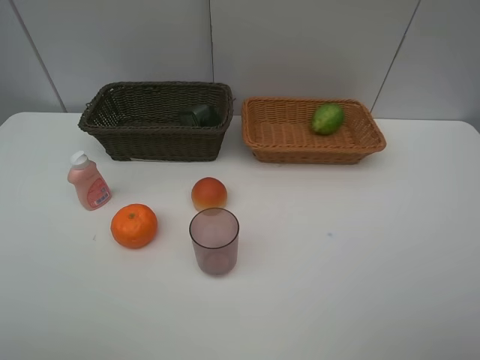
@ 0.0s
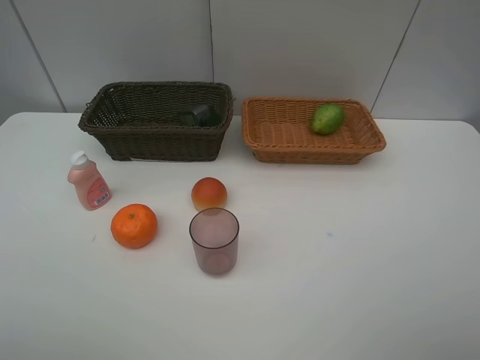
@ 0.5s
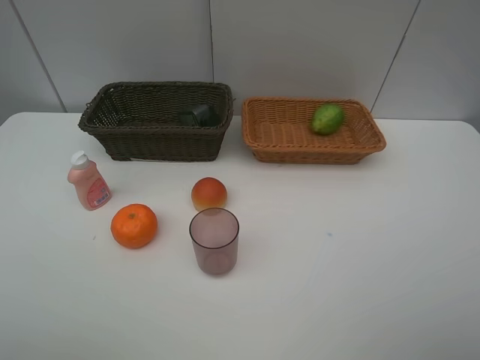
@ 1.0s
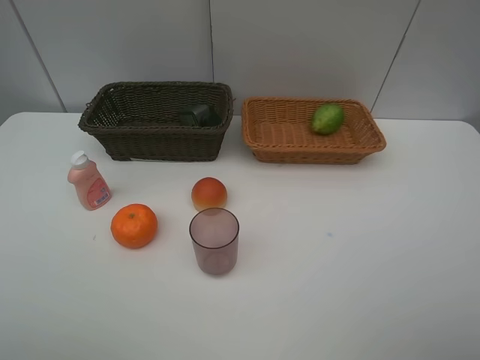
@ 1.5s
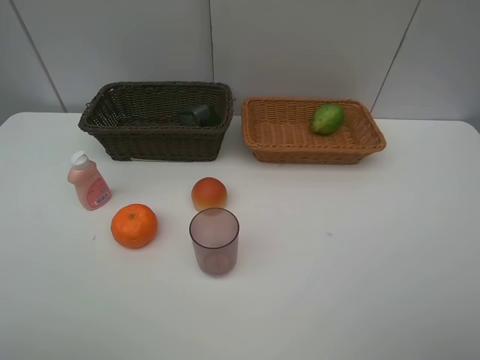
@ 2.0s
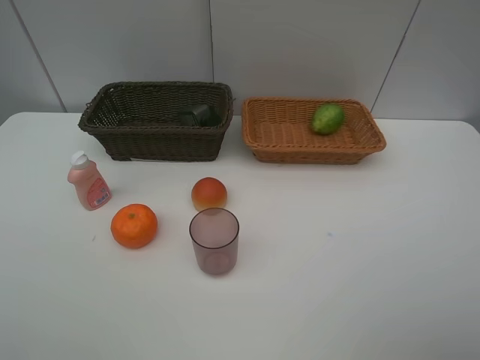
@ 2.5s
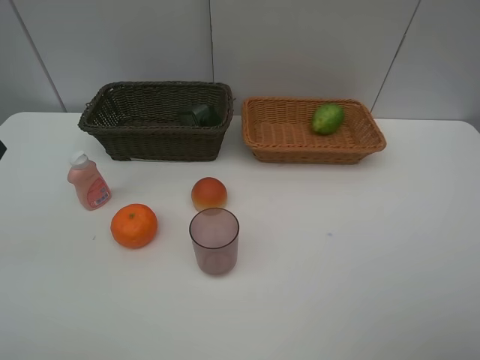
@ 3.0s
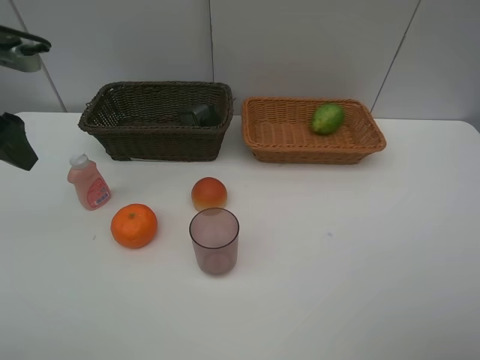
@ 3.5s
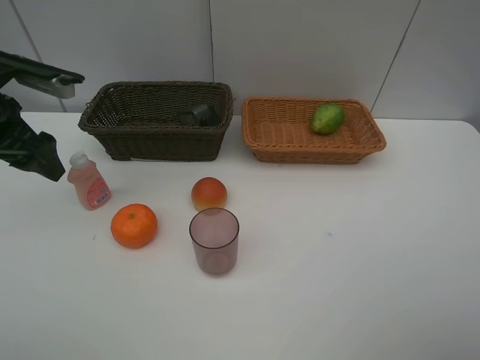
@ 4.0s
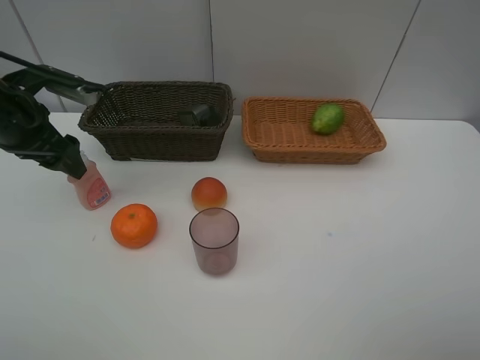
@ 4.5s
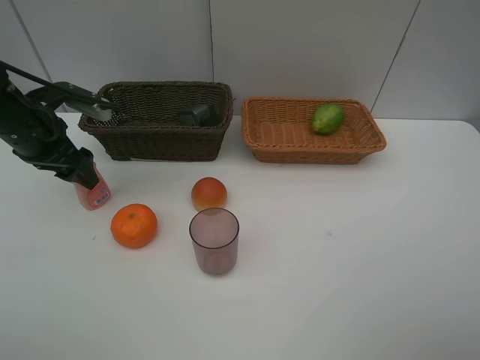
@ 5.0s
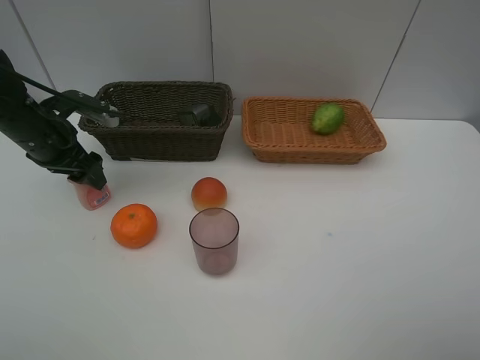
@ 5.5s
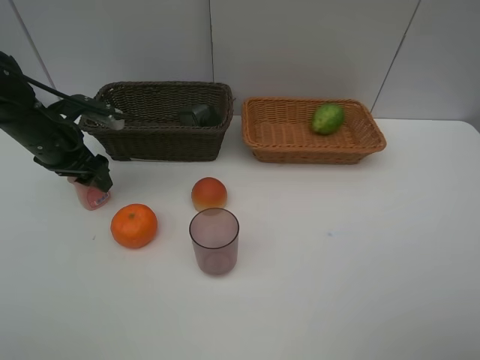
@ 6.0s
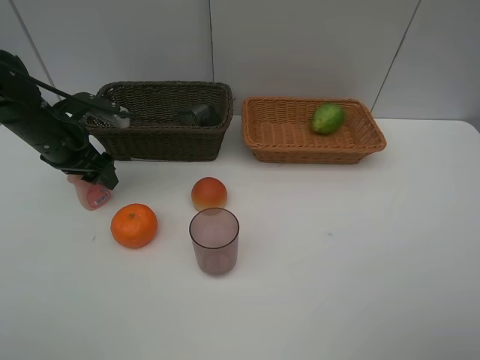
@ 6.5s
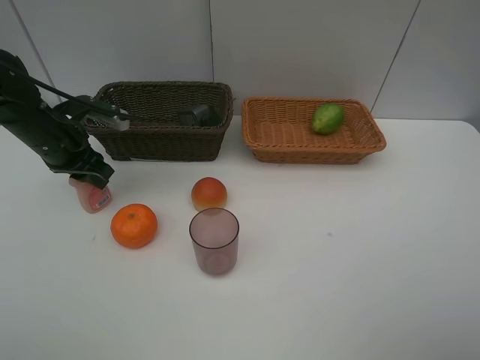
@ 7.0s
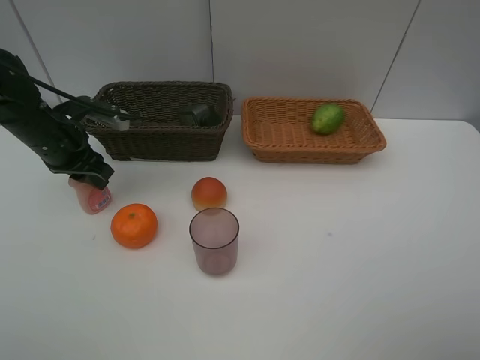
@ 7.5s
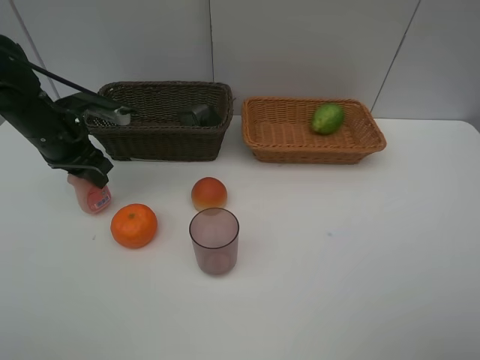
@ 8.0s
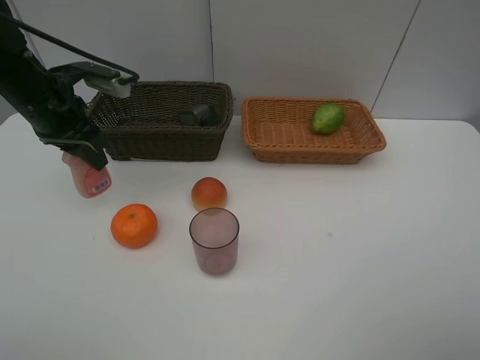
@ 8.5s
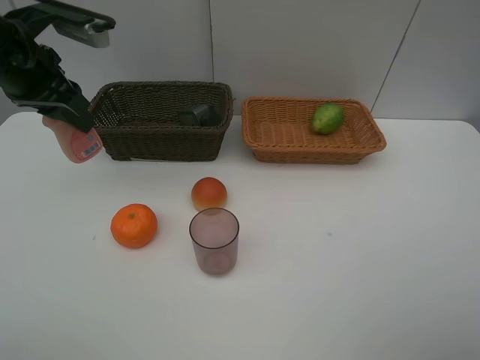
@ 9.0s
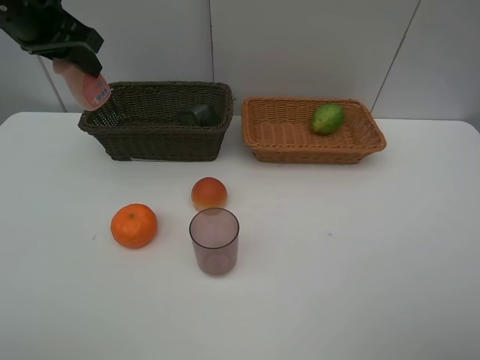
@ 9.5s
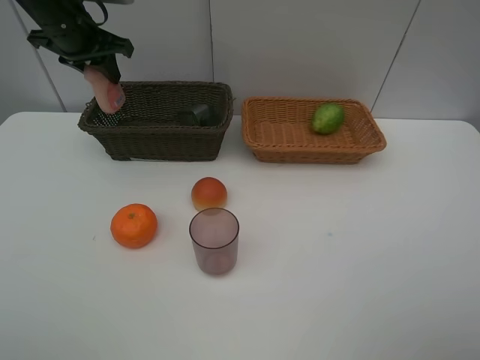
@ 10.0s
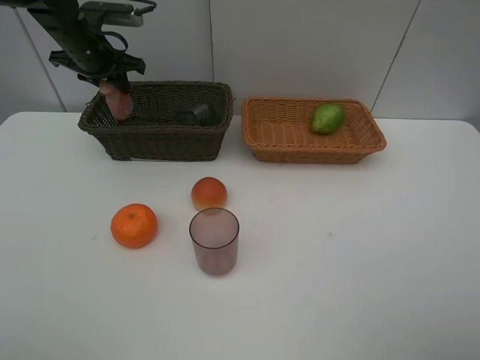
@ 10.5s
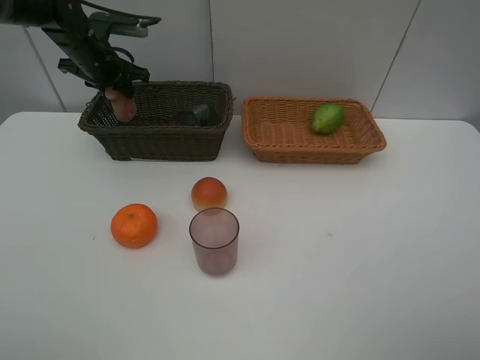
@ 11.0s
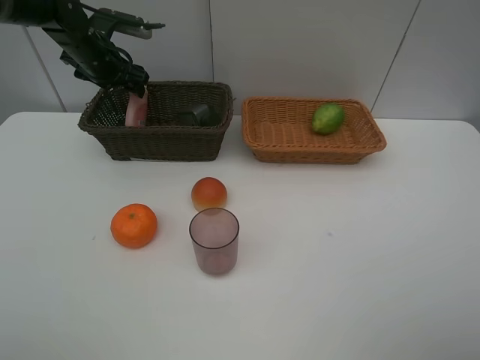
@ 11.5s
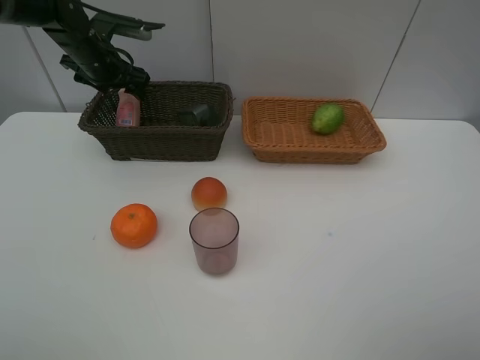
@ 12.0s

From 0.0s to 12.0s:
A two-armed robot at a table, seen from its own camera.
Task of the whole recording: place multiple objects separately in different baskets.
From 0.0s to 2.0s: Both grippers stay about where they are.
From 2.0s to 4.0s: The left gripper is displaced forward by approximately 30 cm.
From 4.0s to 6.0s: The left gripper shifts about 10 cm downward and forward.
From 6.0s to 8.0s: The left gripper closes.
From 8.0s to 10.0s: The left gripper moves forward and upward, approximately 15 cm.
From 10.0s to 12.0s: The left gripper moves downward, about 5 cm, and opens up.

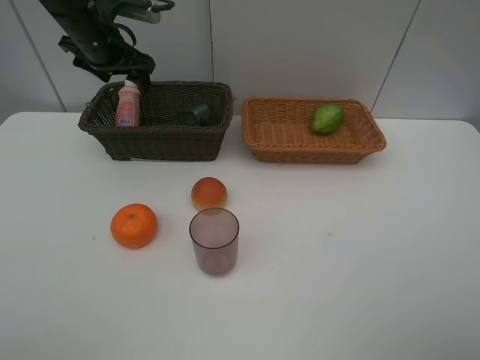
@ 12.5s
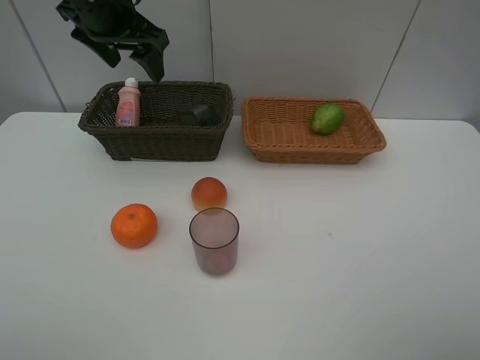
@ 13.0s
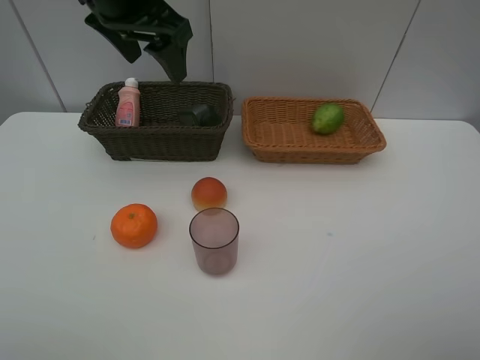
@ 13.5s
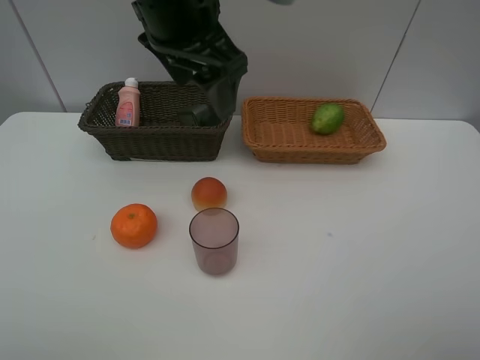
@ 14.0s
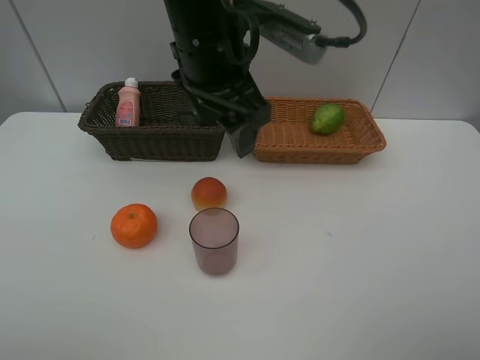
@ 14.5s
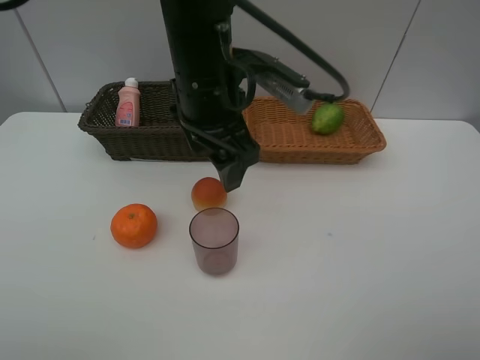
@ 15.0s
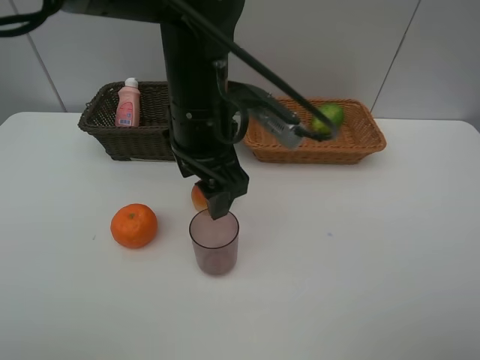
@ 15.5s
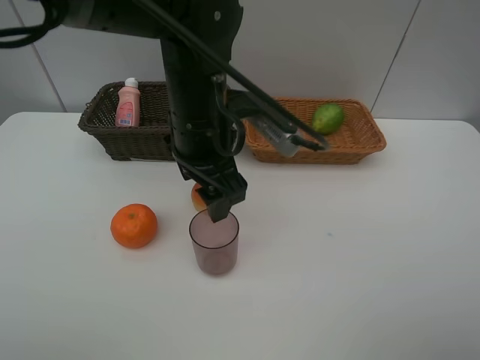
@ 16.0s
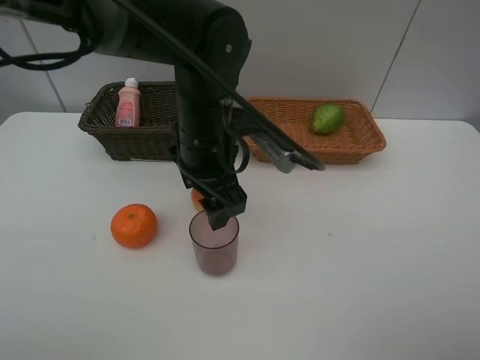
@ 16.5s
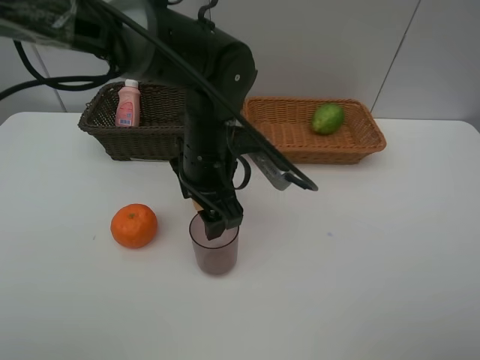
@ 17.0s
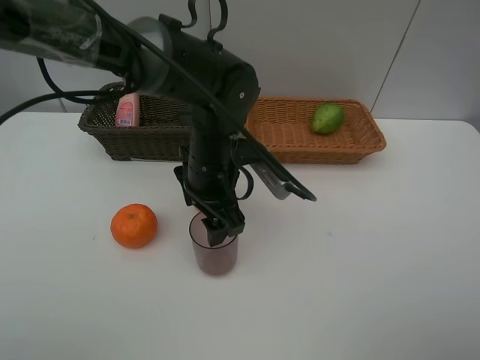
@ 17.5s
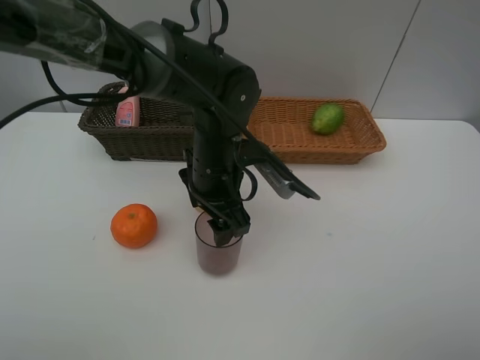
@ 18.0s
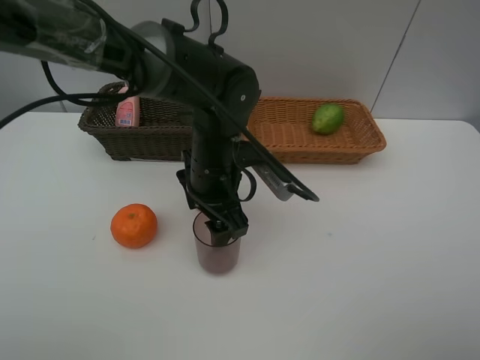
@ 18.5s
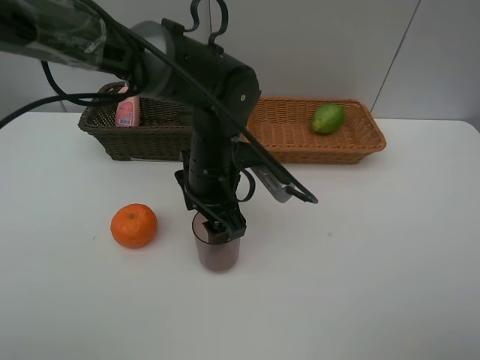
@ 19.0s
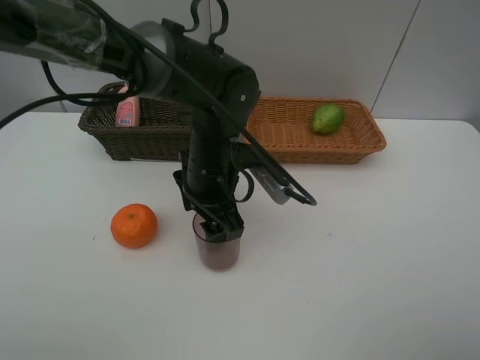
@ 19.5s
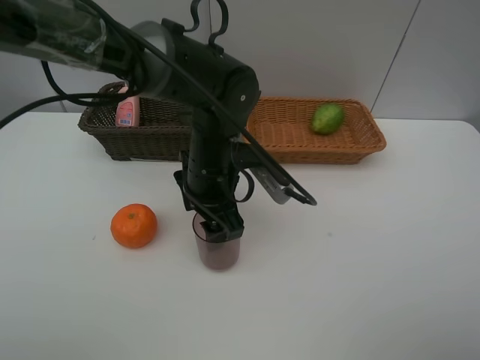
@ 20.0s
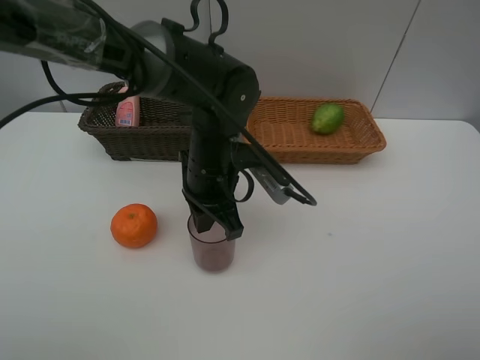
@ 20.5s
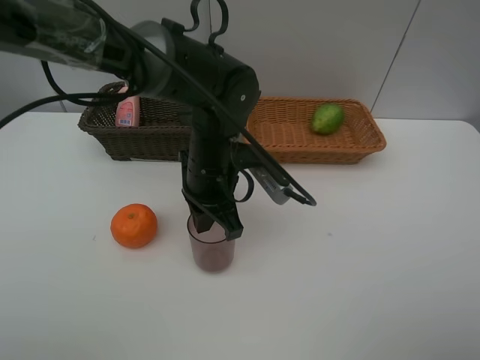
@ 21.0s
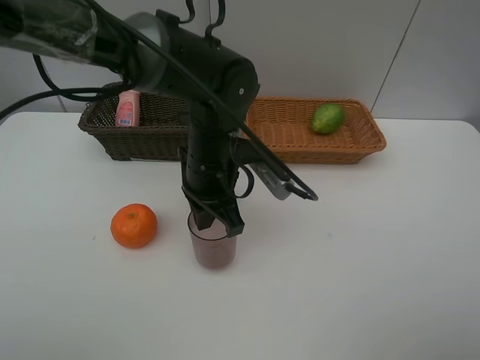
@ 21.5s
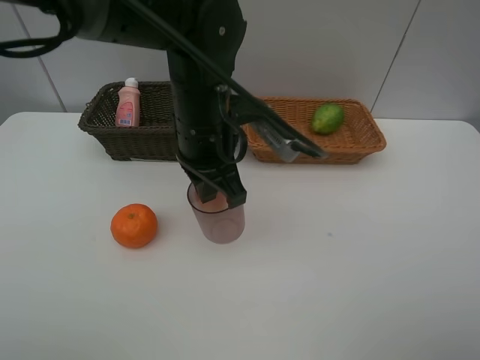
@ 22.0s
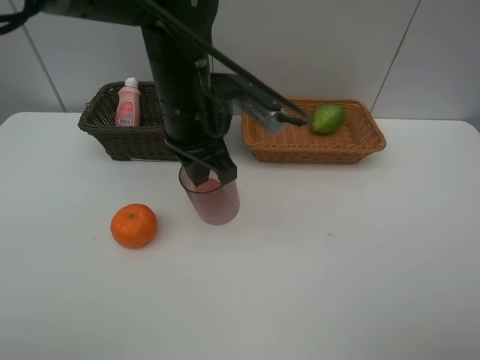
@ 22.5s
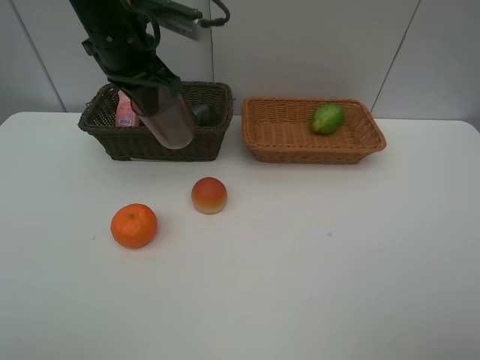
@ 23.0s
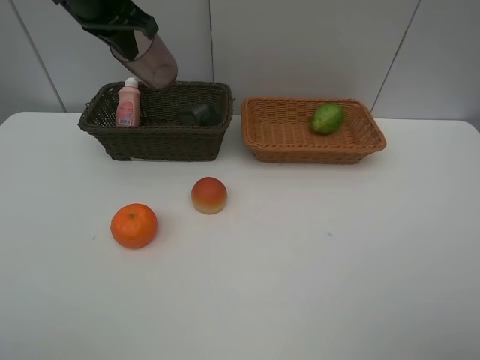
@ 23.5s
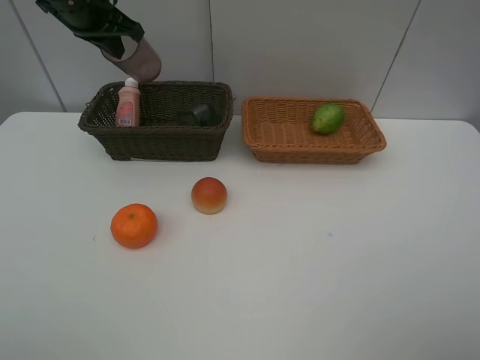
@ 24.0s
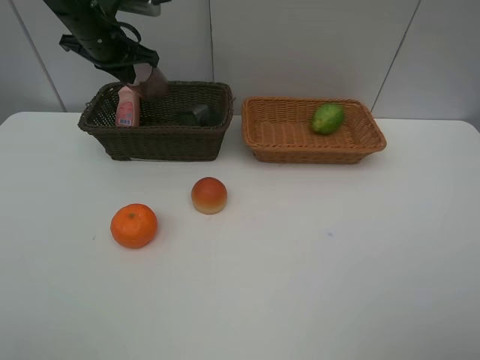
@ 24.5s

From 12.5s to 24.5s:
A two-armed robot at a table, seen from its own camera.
Task of the whole recording: place multiple objects separately in different baskets.
From 12.5s to 14.5s: The left gripper goes about 25 cm to the right and backward.
From 14.5s to 16.5s: The left gripper is displaced downward by roughly 10 cm.
From 16.5s to 18.5s: The left gripper moves roughly 5 cm.
From 18.5s to 20.5s: The left gripper closes its fingers.
From 20.5s to 22.5s: The left gripper moves upward, about 10 cm.
From 22.5s to 24.5s: The left gripper goes some 25 cm forward and to the left.

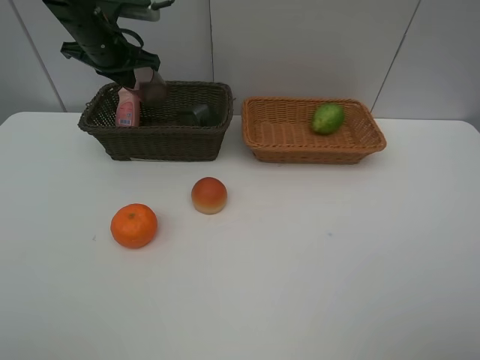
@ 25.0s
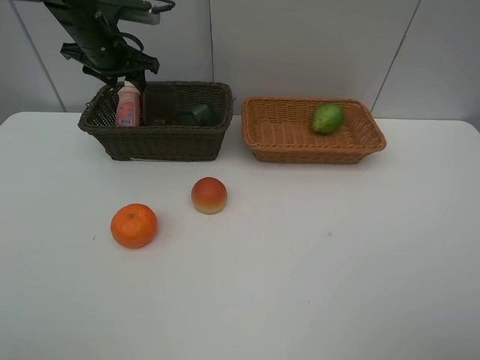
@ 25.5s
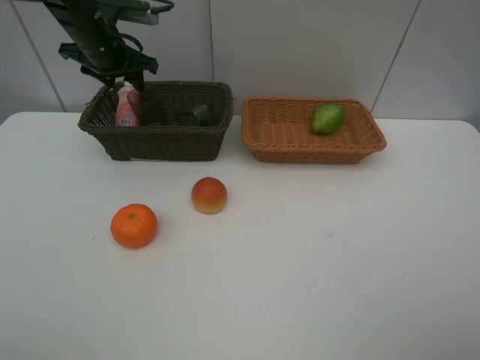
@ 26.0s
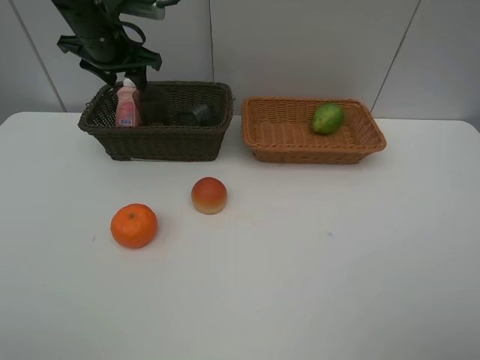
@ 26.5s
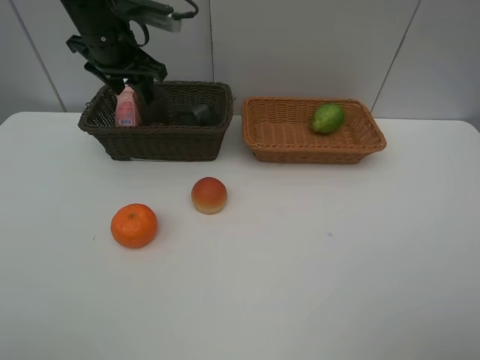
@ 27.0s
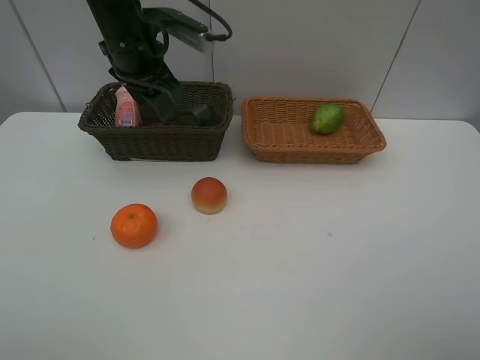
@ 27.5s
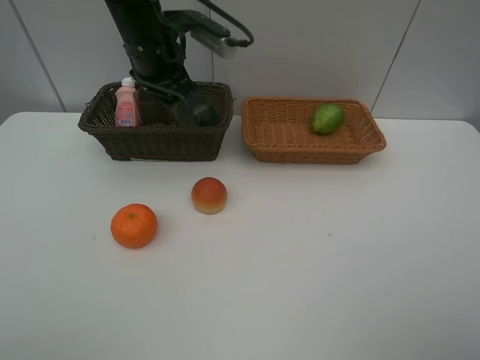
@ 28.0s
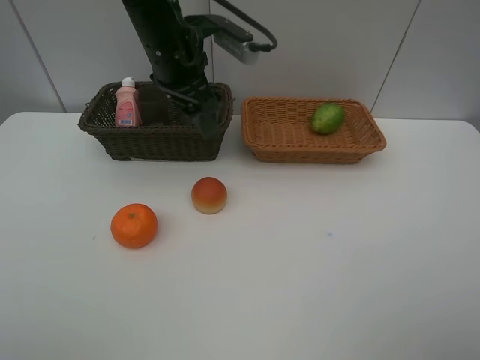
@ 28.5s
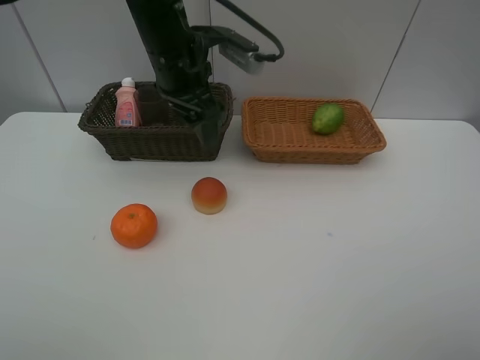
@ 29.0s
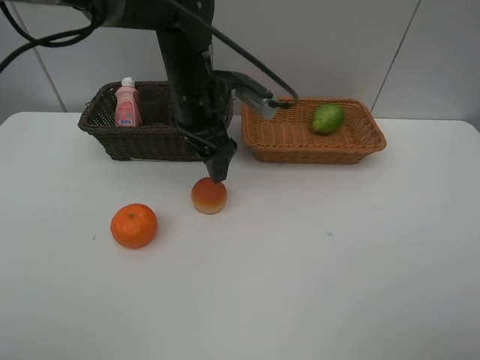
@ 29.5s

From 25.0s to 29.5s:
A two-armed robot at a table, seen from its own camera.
Task of the whole recording: place multiple objects separately in different baskets.
From 25.0s to 27.0s: The left gripper ends up roughly 5 cm from where it was, and opens its fingers.
From 27.0s to 29.5s: The left gripper shifts roughly 15 cm to the right, backward and downward.
